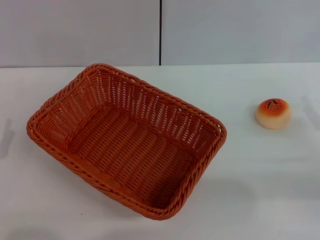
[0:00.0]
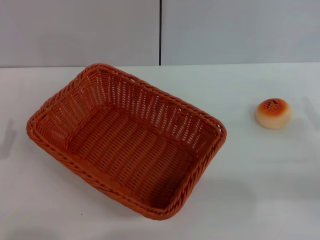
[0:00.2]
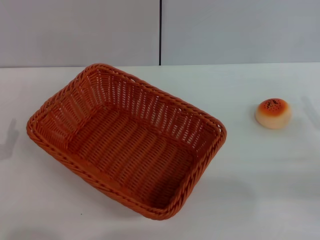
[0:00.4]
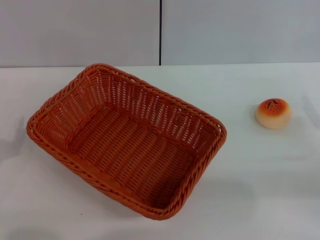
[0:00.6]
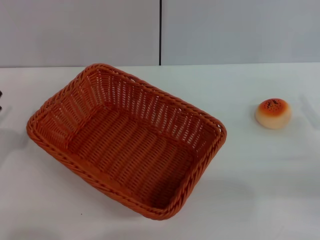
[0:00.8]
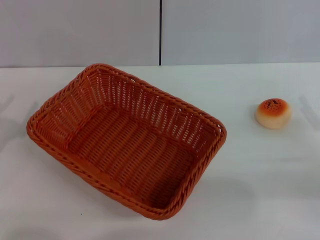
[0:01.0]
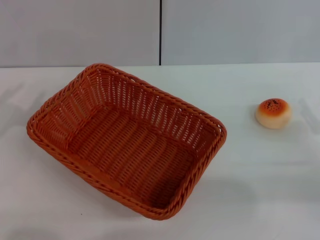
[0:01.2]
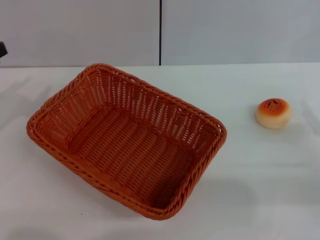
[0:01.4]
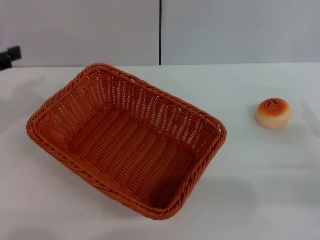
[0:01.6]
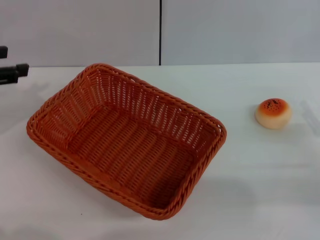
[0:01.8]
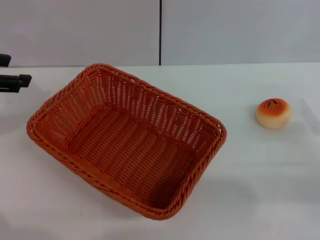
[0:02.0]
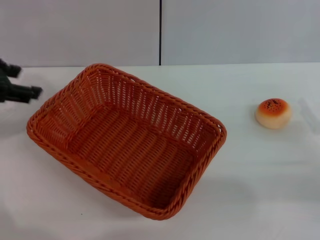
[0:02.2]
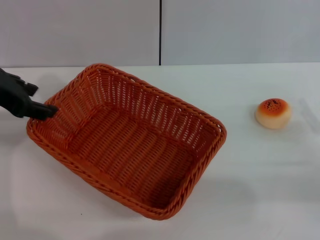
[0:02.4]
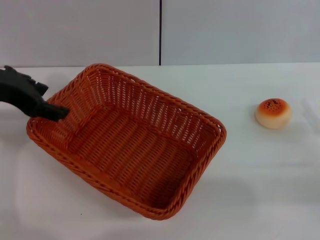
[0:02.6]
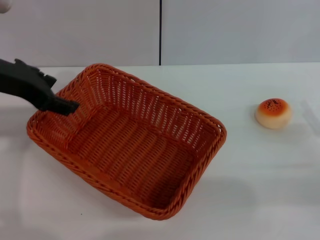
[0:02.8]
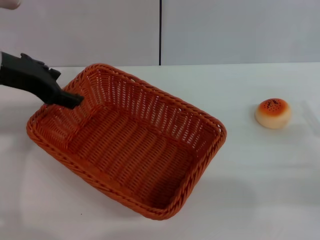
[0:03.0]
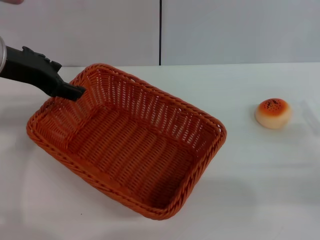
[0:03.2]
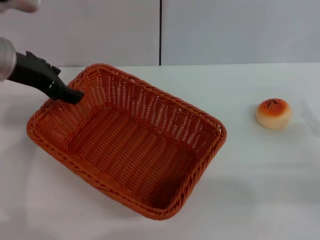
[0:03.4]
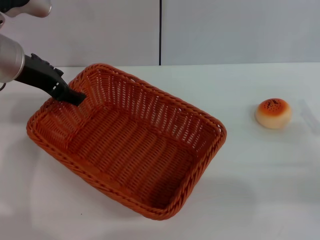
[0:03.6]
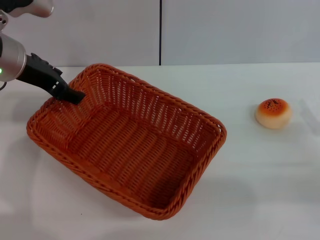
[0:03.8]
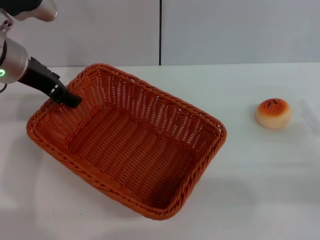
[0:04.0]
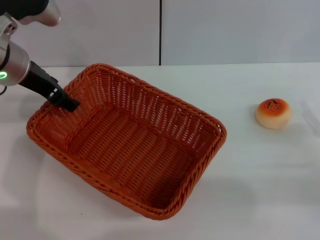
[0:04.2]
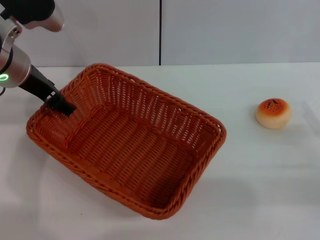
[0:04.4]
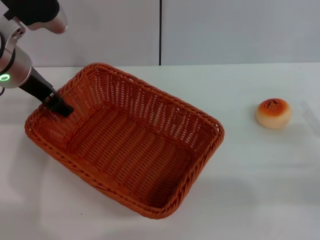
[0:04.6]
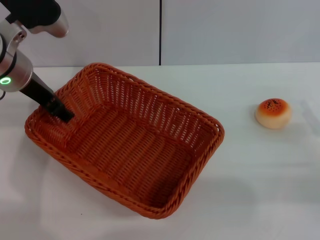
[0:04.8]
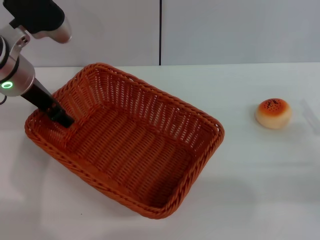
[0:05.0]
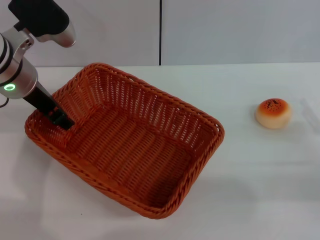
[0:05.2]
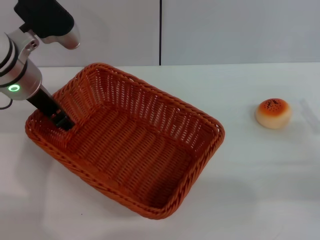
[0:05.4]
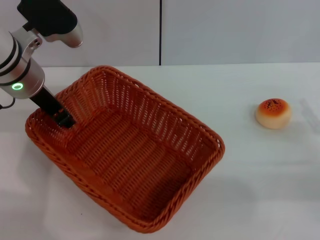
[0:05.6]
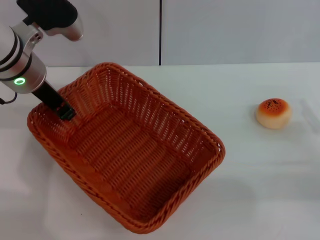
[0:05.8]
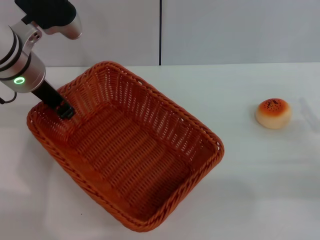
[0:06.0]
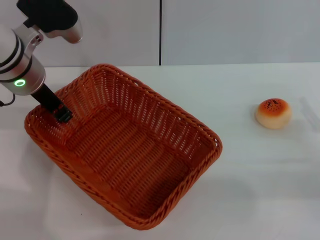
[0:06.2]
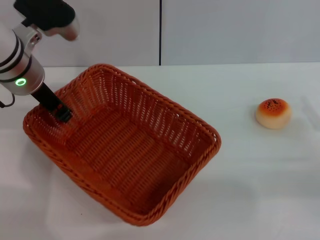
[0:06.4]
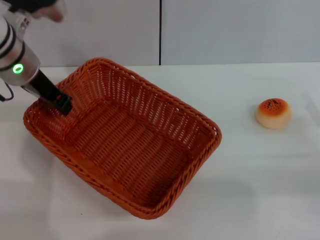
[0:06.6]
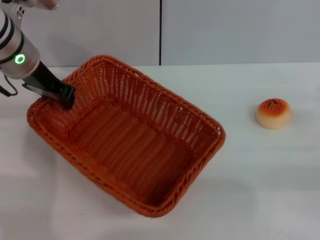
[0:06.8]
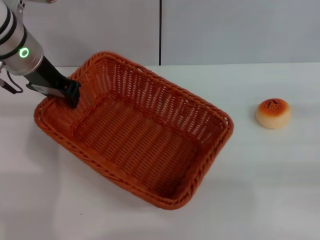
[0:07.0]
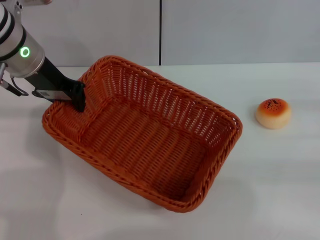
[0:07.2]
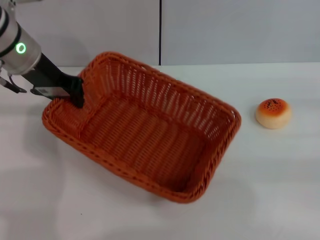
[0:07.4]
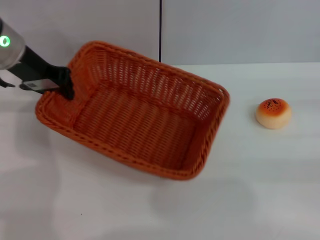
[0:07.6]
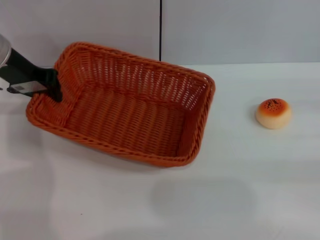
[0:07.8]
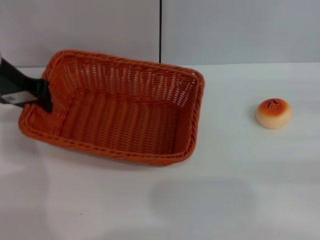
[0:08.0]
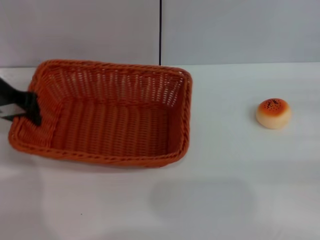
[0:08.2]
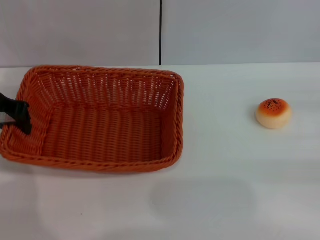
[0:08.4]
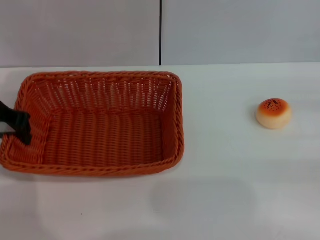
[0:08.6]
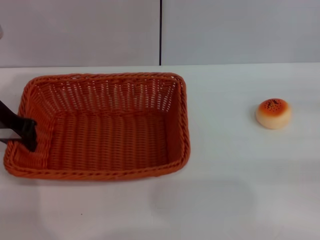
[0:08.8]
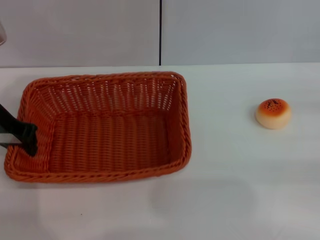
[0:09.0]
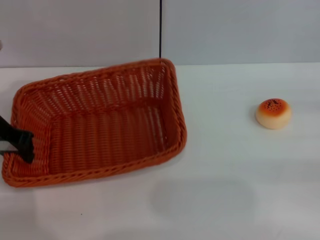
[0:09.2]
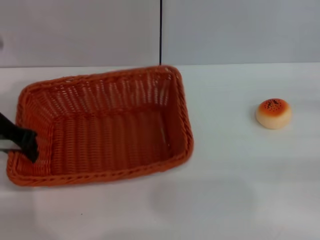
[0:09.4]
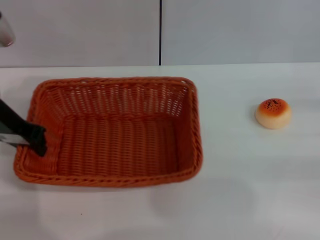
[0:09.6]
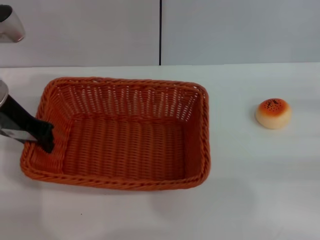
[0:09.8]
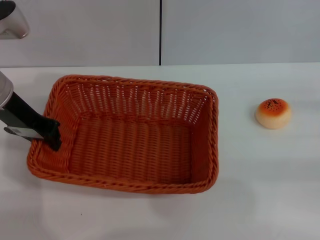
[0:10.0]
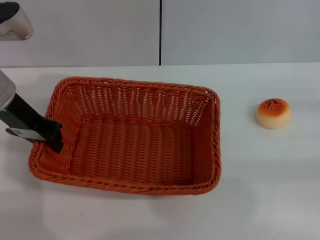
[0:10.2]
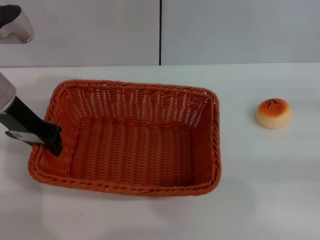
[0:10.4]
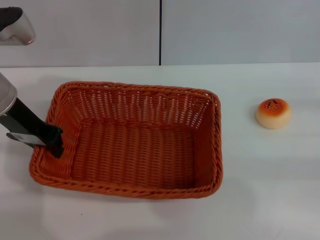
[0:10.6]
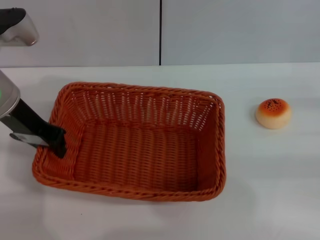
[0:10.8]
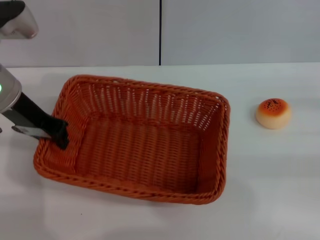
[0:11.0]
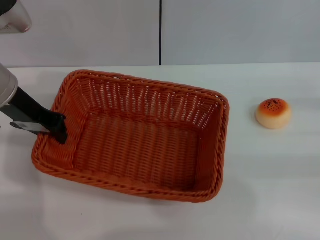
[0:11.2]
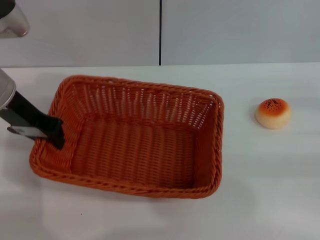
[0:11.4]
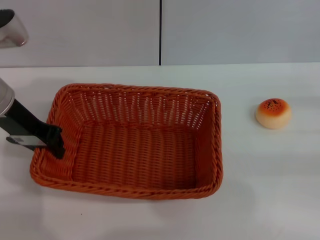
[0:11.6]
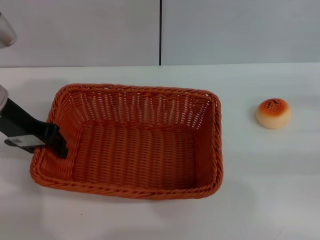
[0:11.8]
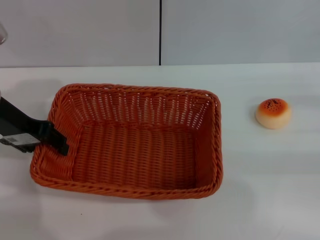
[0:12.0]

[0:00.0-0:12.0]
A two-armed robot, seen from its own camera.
0:01.6 to 0:03.0: The left gripper goes roughly 10 cm to the right.
0:03.0 to 0:04.4: The left gripper ends up about 5 cm from where it was.
0:04.4 to 0:06.0: The left gripper closes its fingers.
0:06.0 to 0:07.6: The left gripper shifts by some 5 cm. The right gripper is displaced to the right and upward by about 10 cm.
0:07.6 to 0:09.0: The left gripper is displaced backward by roughly 5 cm.
0:09.0 to 0:10.4: The grippers move only a little.
0:10.4 to 0:12.0: The left gripper opens up.

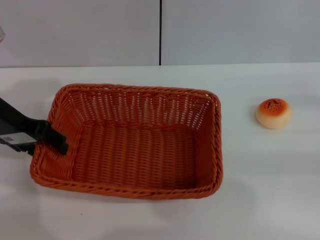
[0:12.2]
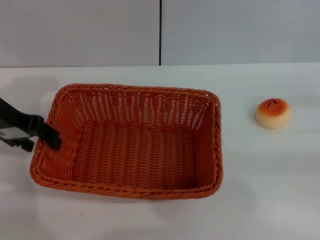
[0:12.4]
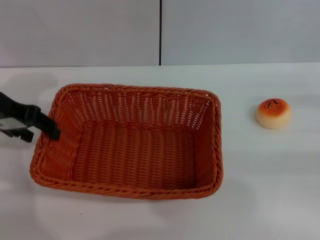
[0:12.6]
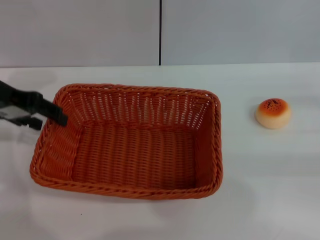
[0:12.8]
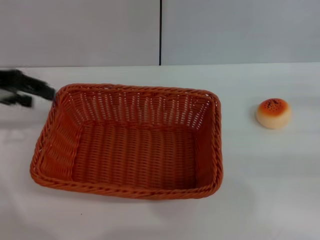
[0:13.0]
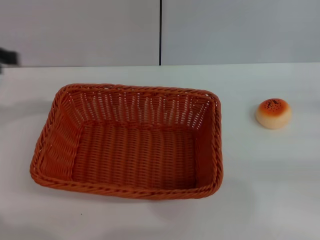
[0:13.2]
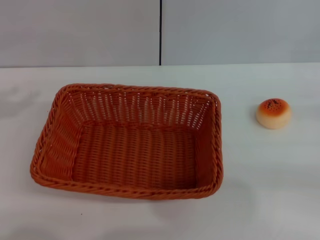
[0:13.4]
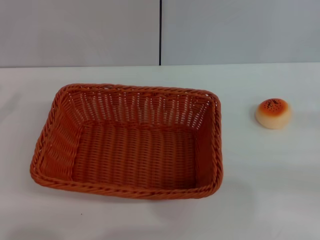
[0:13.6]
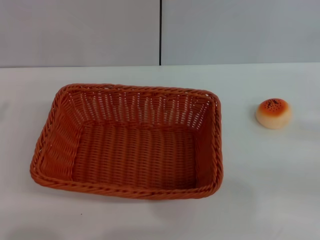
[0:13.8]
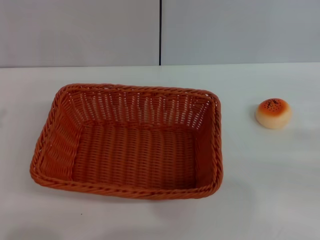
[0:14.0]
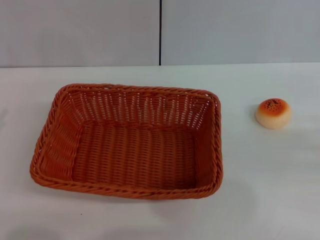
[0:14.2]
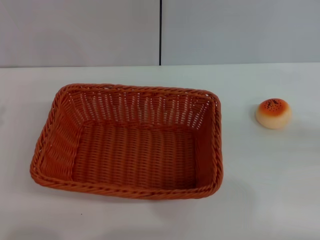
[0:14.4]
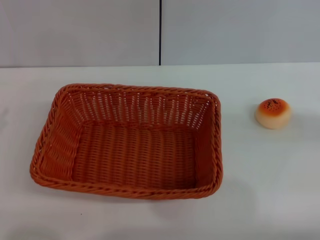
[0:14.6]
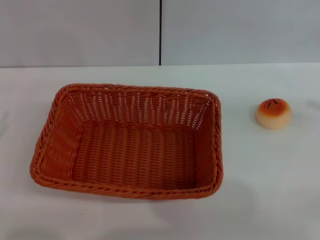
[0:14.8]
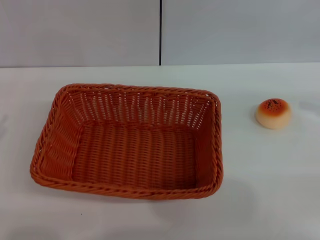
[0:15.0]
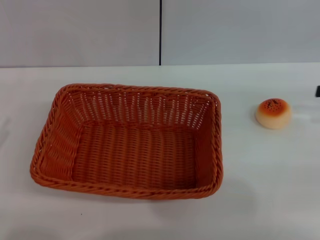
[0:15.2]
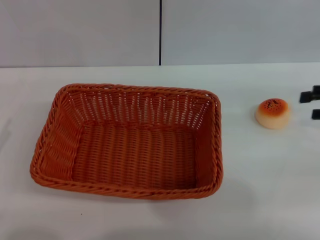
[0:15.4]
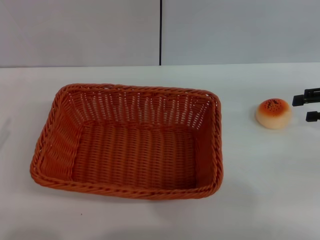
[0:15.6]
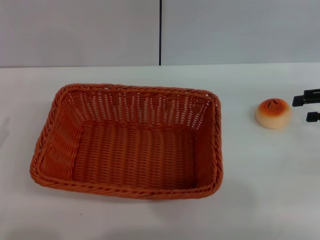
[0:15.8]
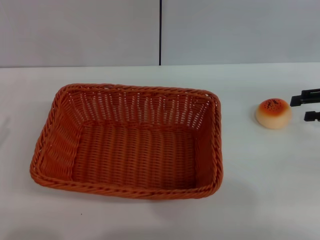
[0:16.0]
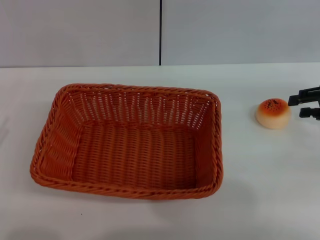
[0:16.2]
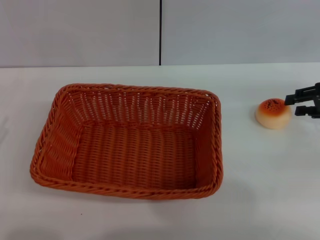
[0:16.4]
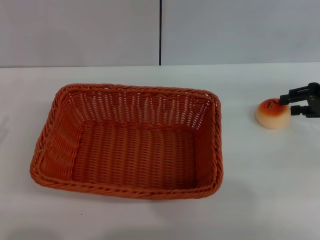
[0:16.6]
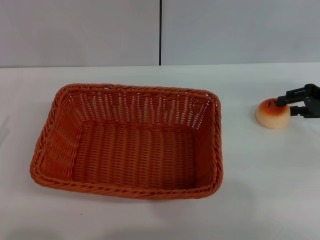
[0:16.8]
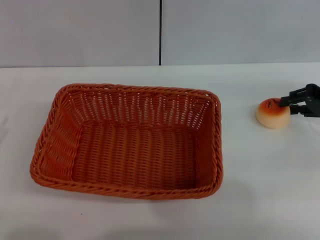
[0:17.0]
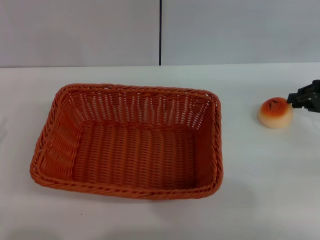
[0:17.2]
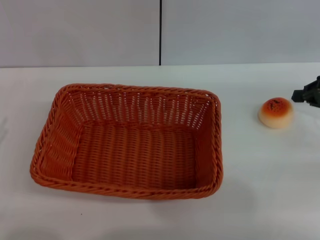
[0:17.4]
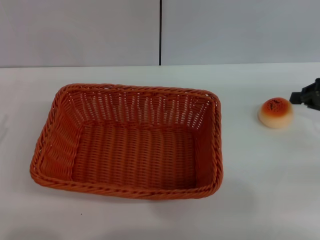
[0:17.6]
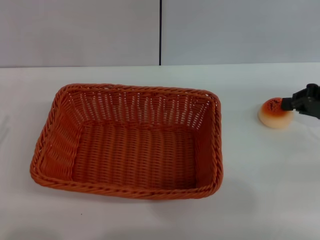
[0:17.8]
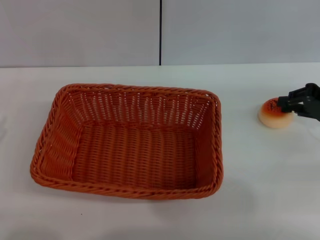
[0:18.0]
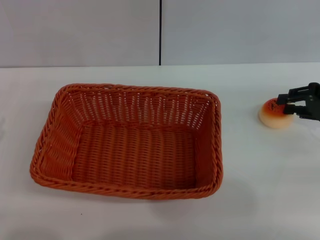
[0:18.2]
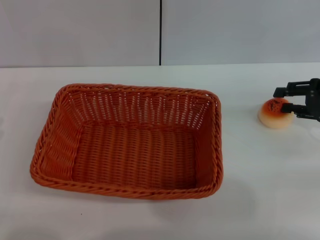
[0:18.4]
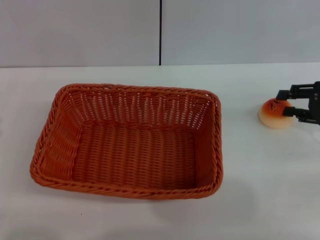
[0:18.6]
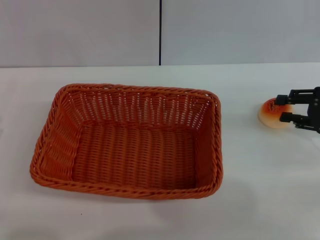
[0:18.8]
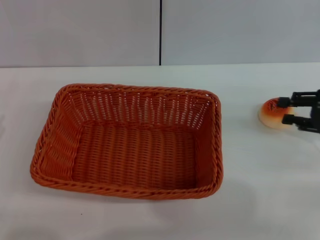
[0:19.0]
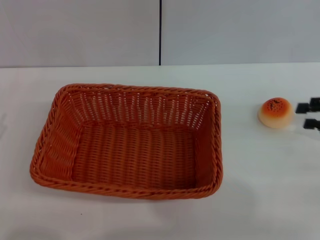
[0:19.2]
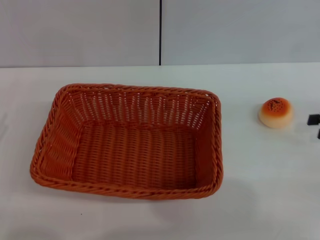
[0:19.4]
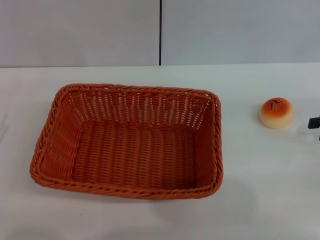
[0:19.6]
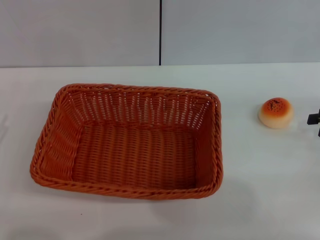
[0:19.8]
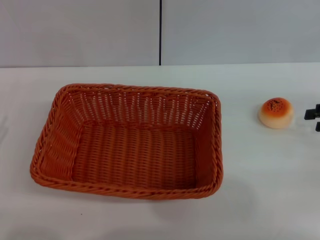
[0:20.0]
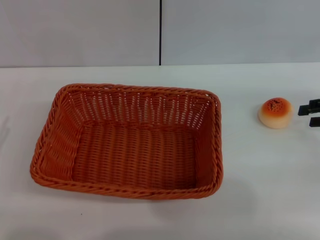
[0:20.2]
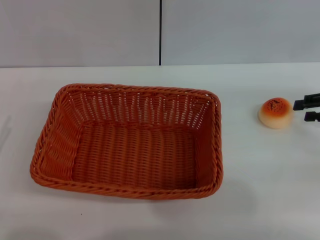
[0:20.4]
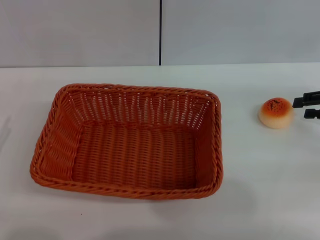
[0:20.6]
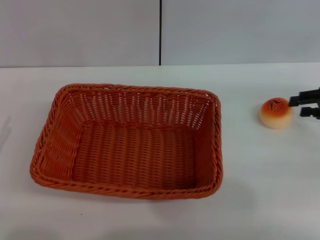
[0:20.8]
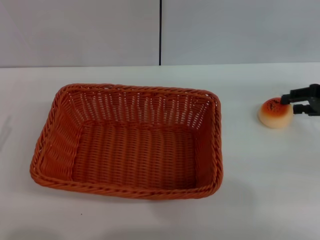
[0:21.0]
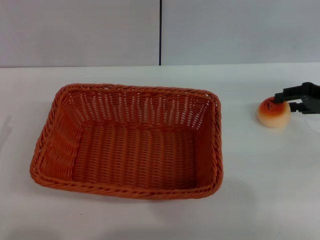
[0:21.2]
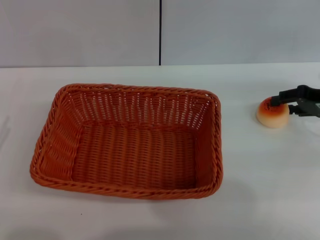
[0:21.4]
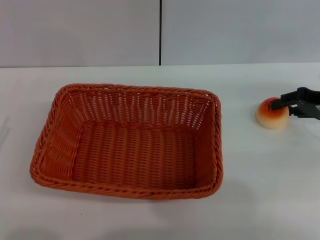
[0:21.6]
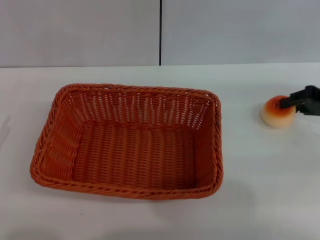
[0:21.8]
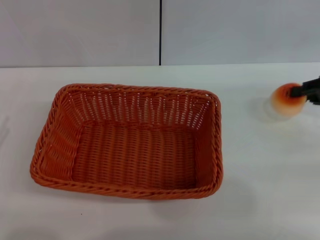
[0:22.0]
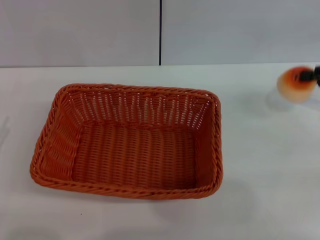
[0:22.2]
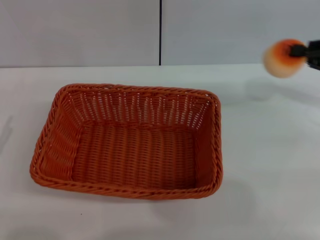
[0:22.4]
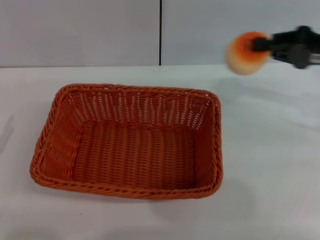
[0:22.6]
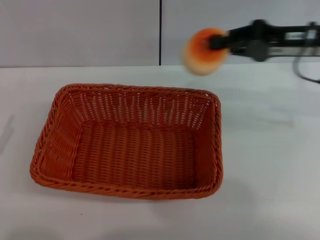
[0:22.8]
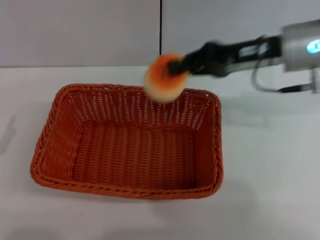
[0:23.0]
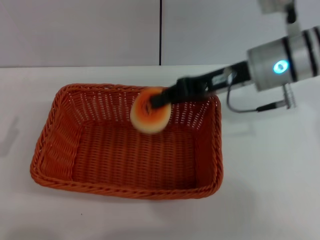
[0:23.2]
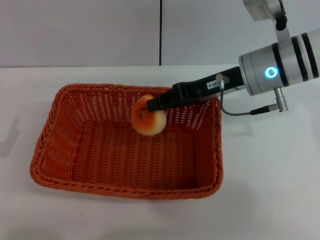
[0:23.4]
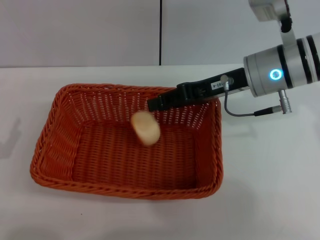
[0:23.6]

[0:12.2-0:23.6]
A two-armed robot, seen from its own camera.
Step, 0:13.0 to 0:22.2: Pick up the egg yolk pastry with the right gripper.
0:12.2 to 0:13.6: The left gripper travels to the left and backward by some 20 cm.
0:15.0 to 0:16.4: The right gripper changes place by roughly 10 cm.
0:16.4 to 0:17.8: The right gripper closes up.
0:17.8 to 0:19.4: The right gripper shifts by some 5 cm, and opens.
0:19.4 to 0:20.8: The right gripper ends up some 5 cm from where it was.
0:20.8 to 0:22.2: The right gripper closes its fingers.
0:22.2 to 0:23.6: The right gripper moves to the left, some 20 cm.
